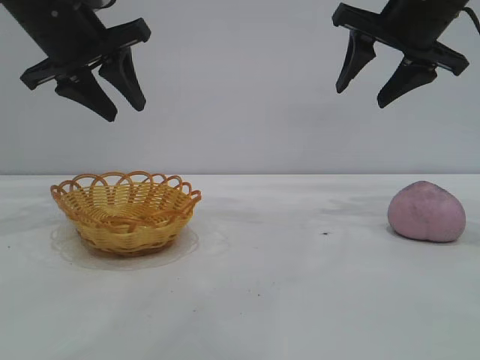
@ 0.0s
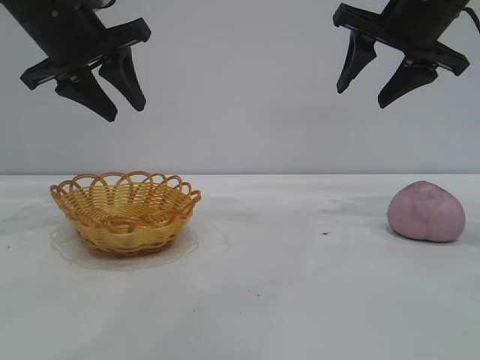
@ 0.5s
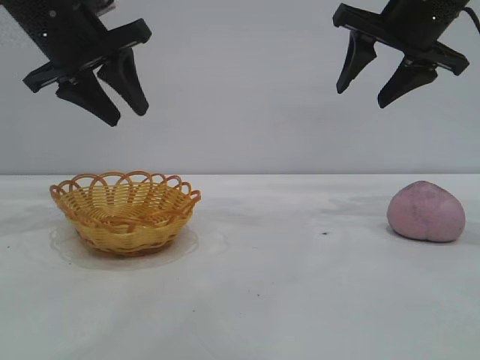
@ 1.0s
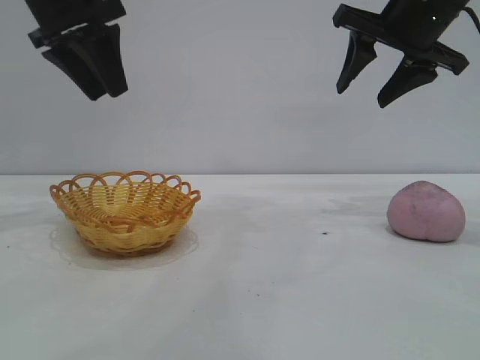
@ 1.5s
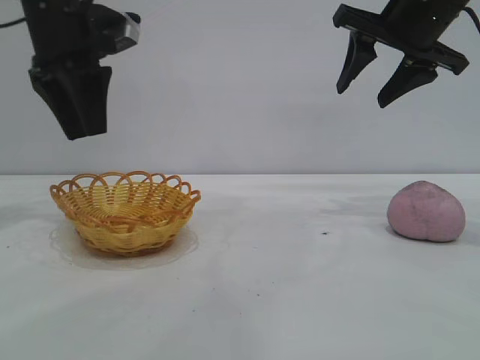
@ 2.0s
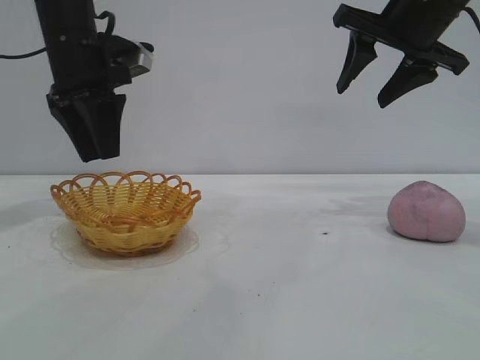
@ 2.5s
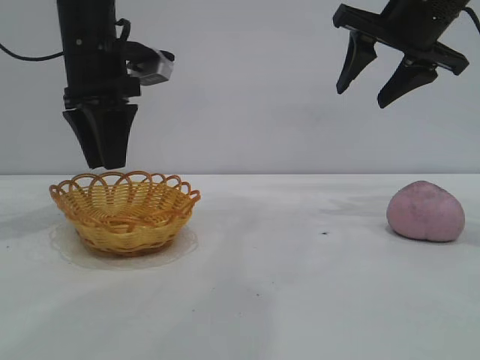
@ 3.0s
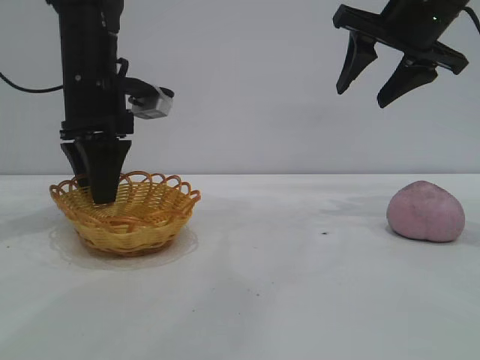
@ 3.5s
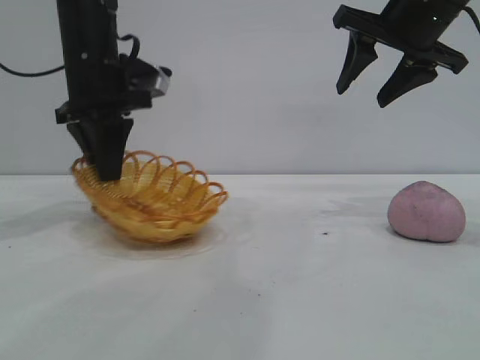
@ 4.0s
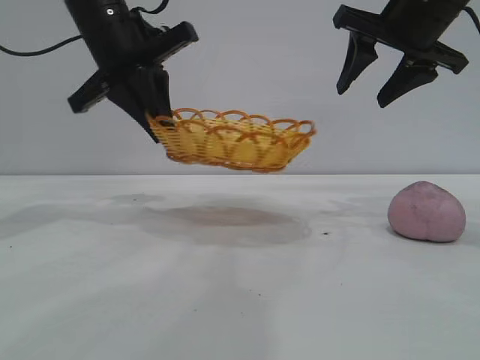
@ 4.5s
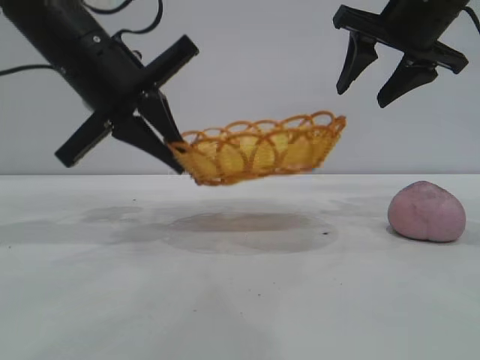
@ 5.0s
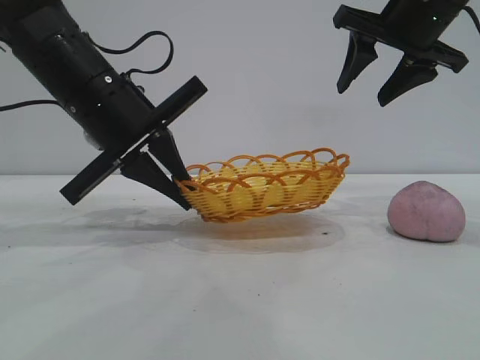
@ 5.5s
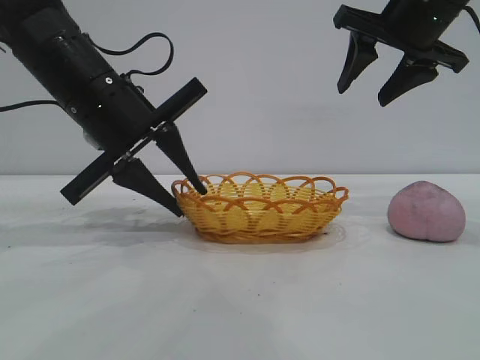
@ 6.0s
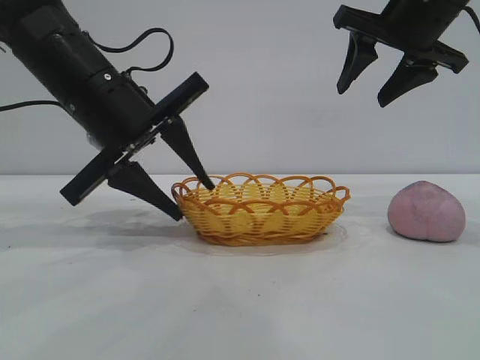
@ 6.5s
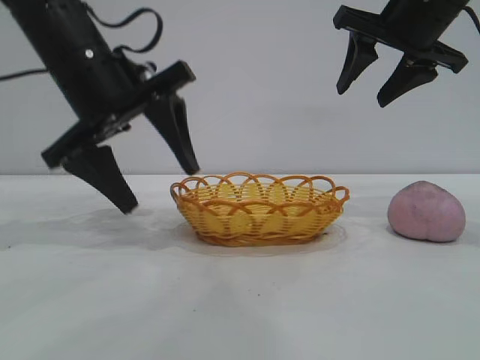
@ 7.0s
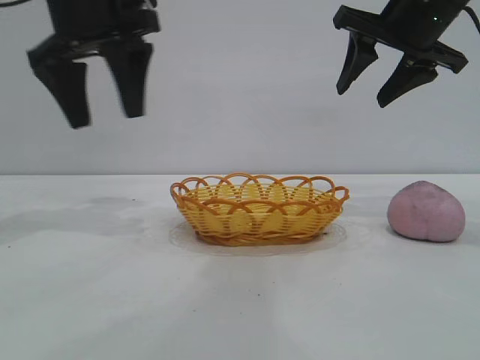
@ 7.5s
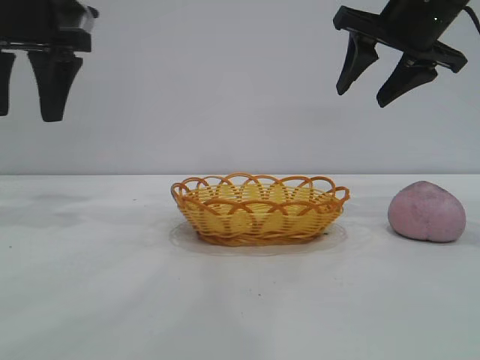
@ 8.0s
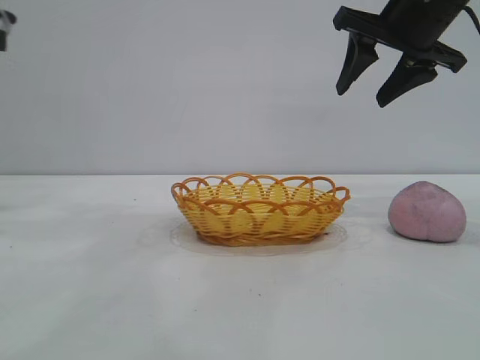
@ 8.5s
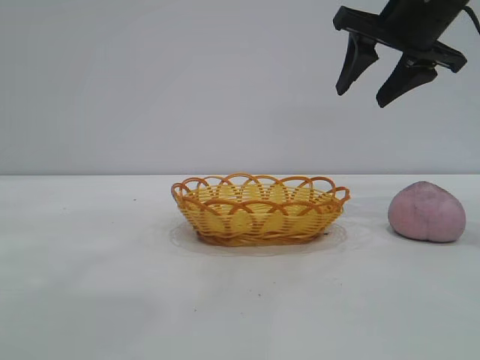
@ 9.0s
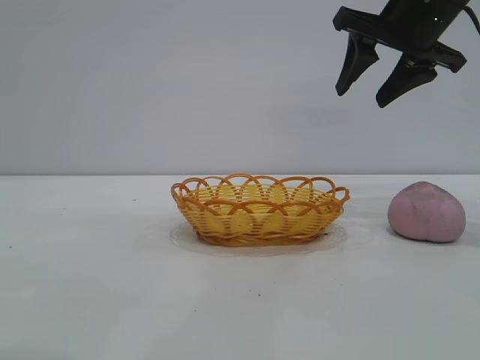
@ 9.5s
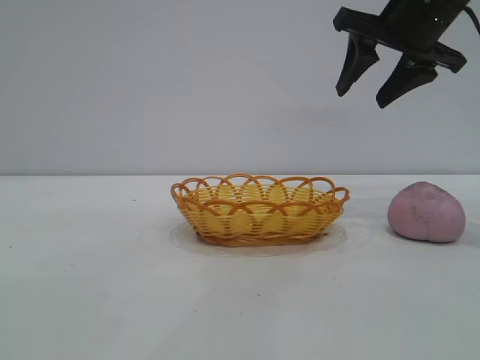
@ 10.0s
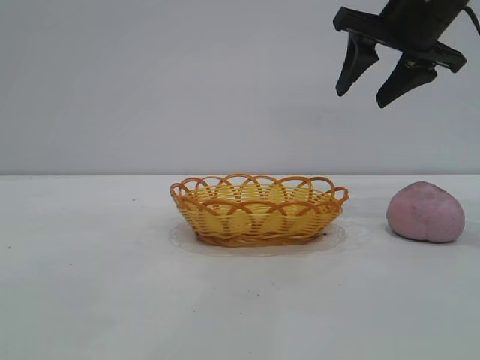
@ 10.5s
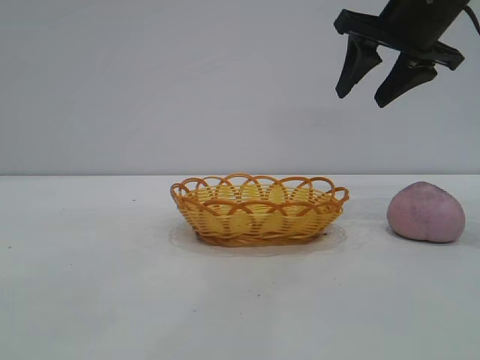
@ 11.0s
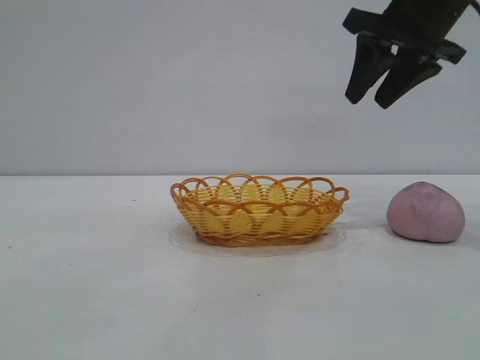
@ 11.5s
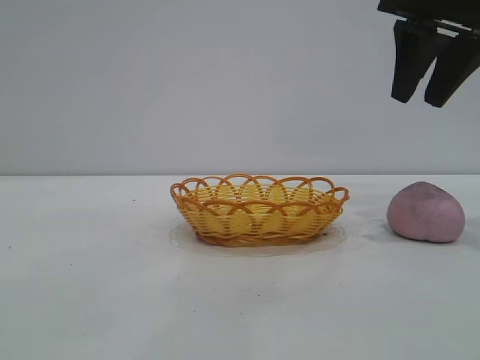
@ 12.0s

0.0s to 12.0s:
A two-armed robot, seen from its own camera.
Task of the whole recording: pick up the peach and put it into the basket.
Step, 0.0s to 7.0s: Move the basket to the center of view.

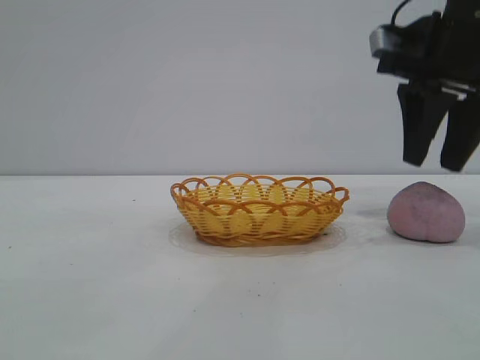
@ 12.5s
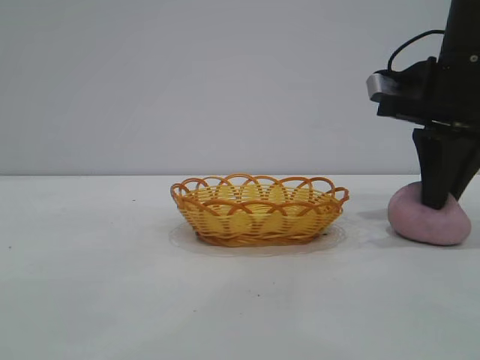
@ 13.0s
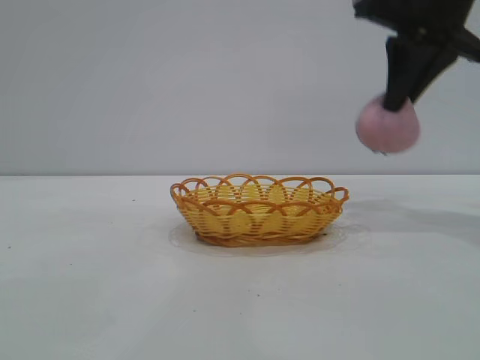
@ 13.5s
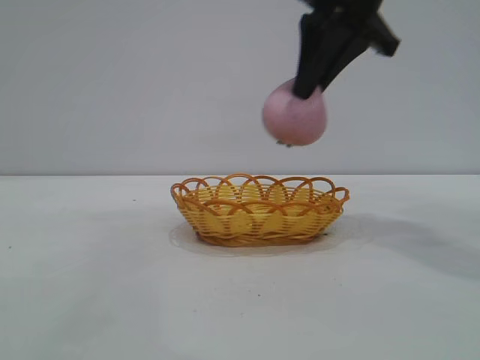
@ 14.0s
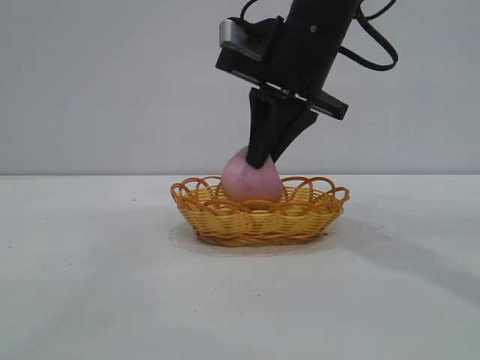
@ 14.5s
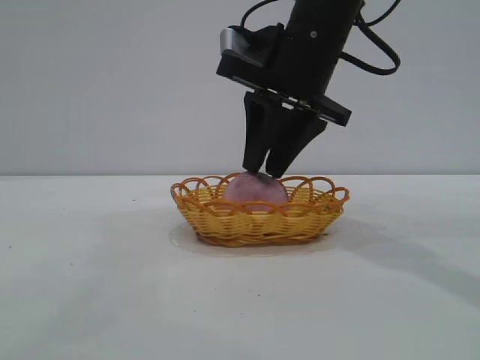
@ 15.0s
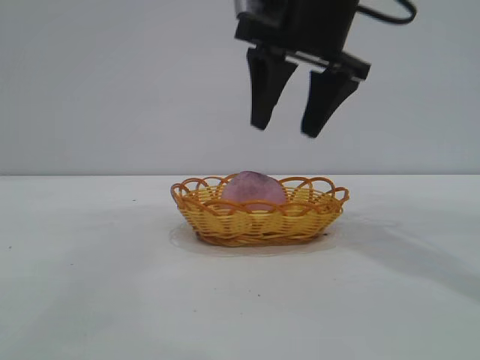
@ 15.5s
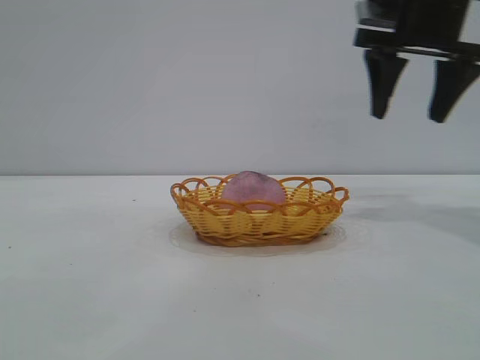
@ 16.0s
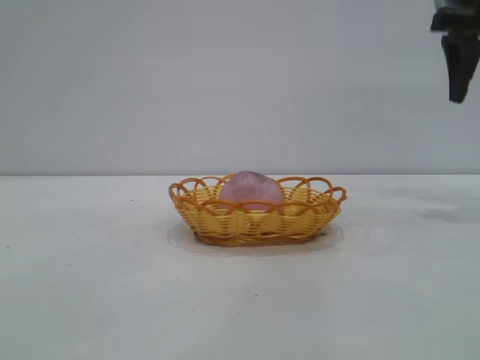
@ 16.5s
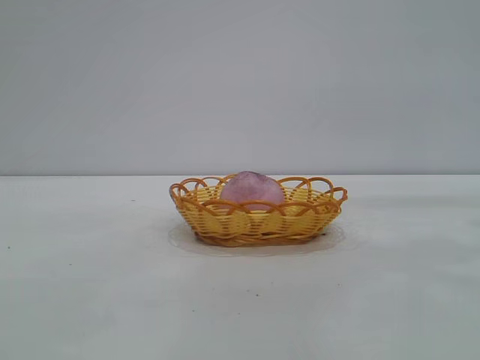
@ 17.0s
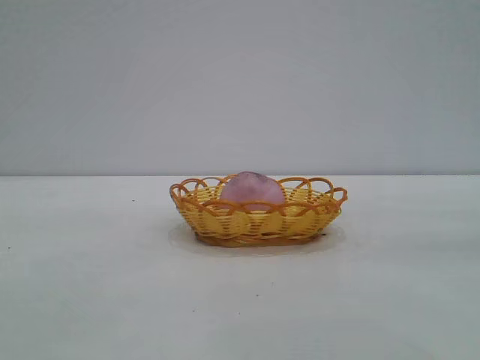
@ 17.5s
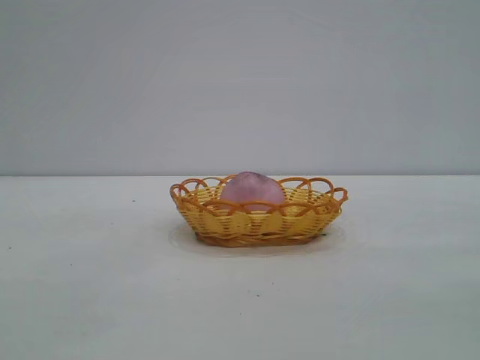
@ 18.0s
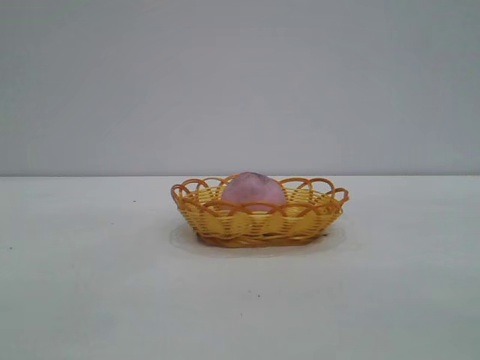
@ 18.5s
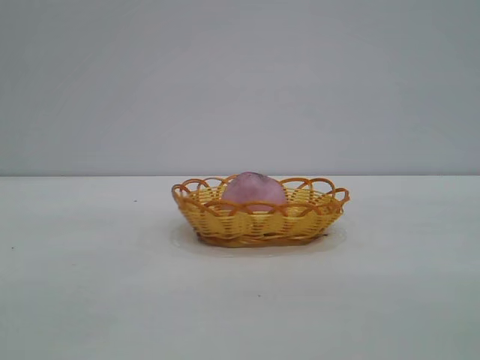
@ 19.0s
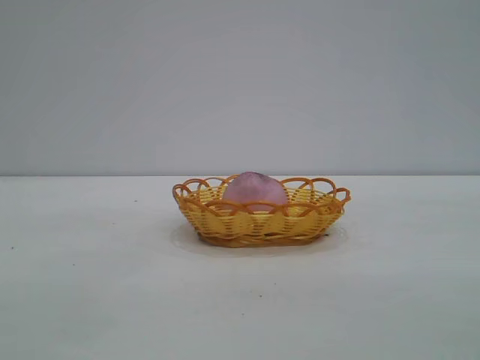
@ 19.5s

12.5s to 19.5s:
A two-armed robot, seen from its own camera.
Task of the whole recording: pick up the peach and put it into the basket.
Step, 14.0s to 15.5s: place the peach into the basket.

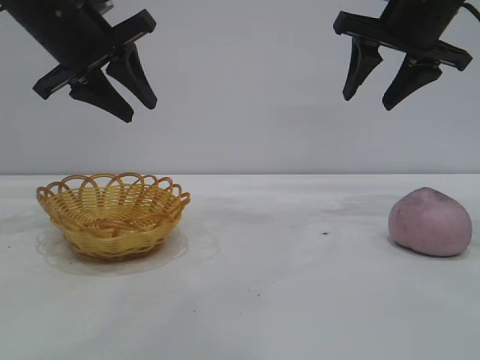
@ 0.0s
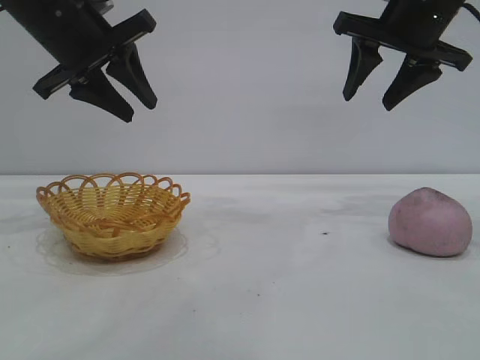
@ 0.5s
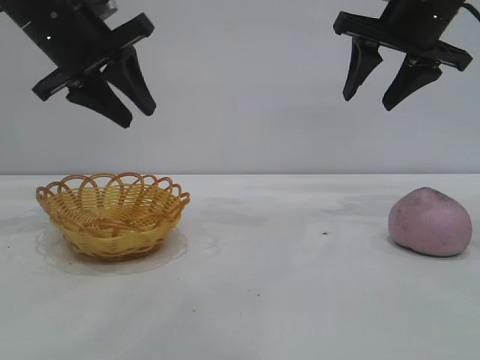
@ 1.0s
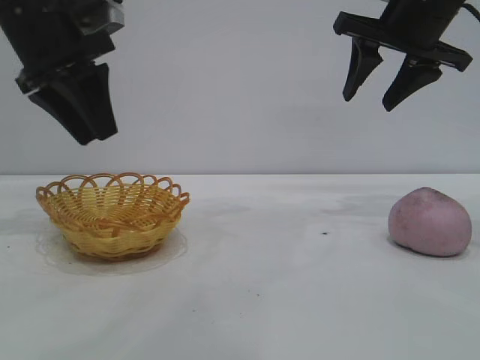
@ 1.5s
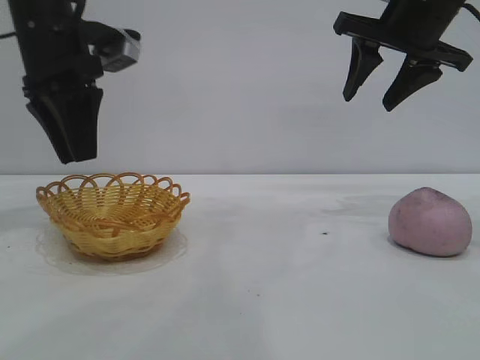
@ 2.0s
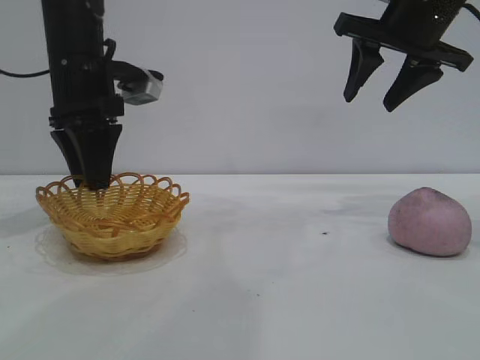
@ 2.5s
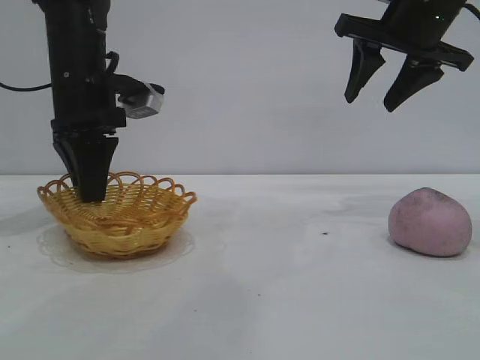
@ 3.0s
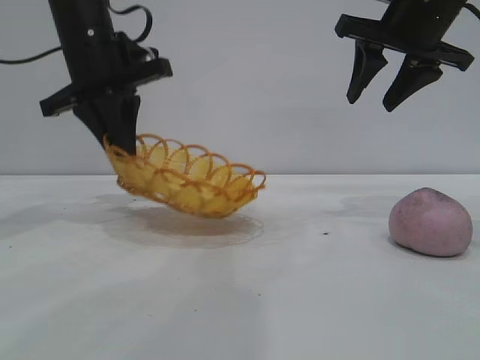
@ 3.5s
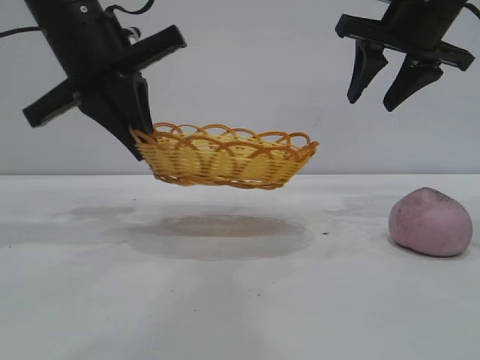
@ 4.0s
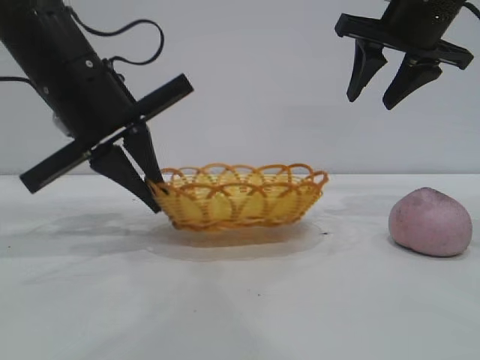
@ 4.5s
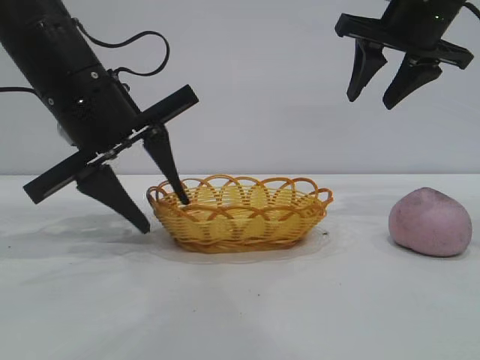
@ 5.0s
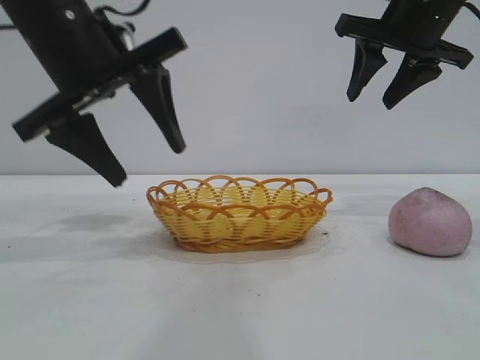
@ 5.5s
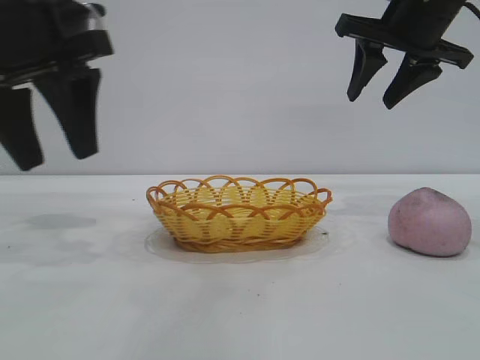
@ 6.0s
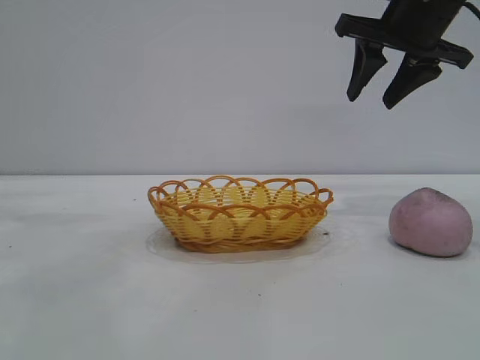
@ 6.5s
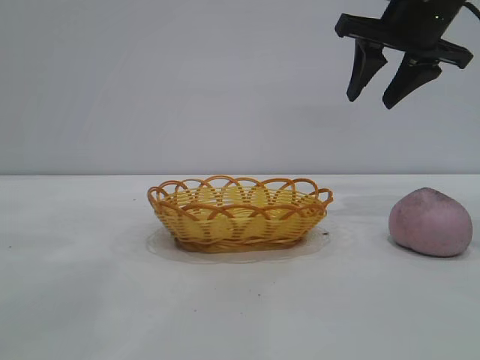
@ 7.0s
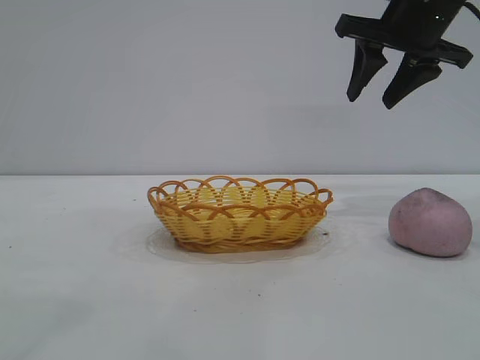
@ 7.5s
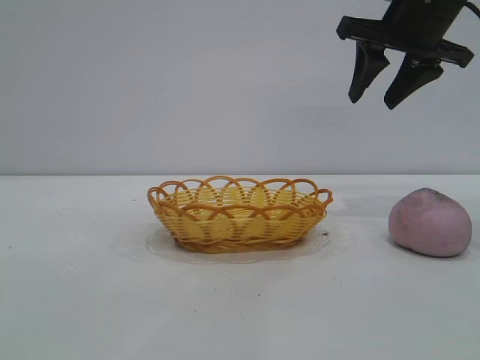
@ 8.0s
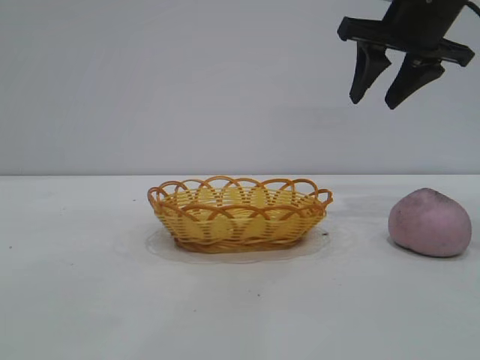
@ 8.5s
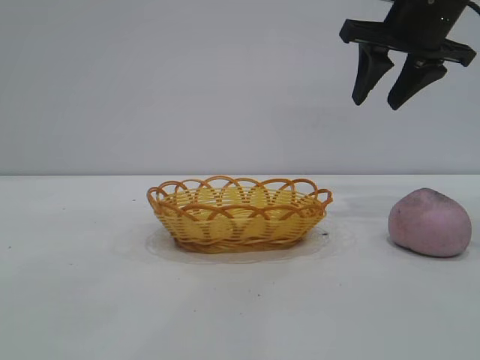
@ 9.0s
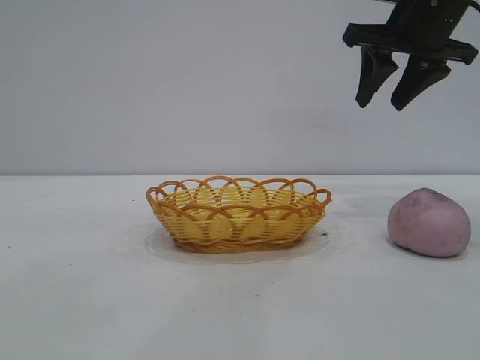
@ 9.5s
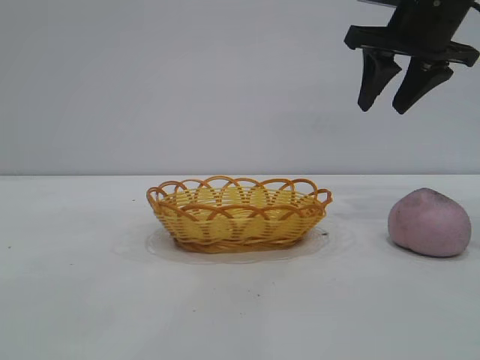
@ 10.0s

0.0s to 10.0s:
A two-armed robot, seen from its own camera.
Task of the whole recording: pick up the peach and put it into the basket.
Step, 0.0s to 5.0s: Move the basket to the center of view.
